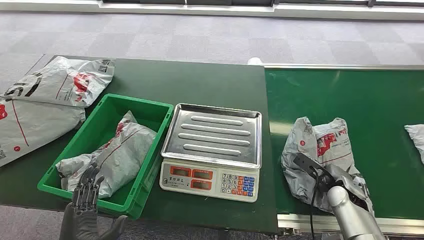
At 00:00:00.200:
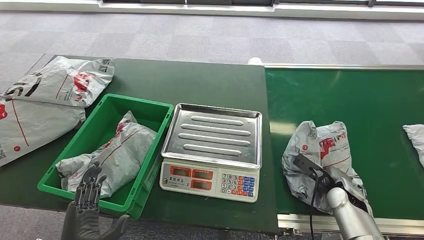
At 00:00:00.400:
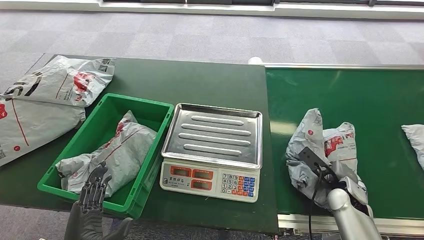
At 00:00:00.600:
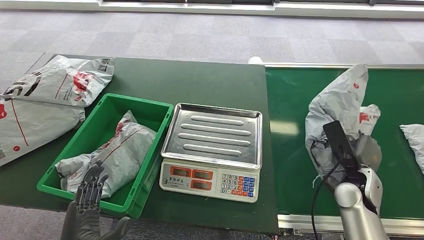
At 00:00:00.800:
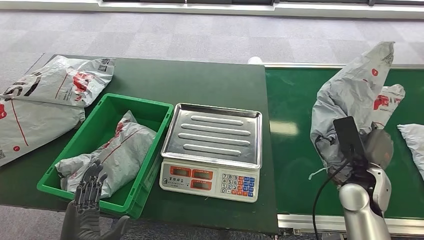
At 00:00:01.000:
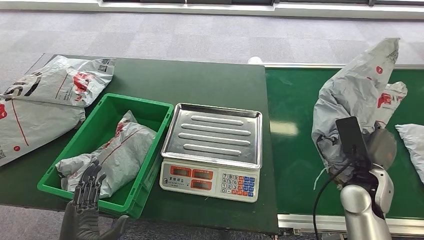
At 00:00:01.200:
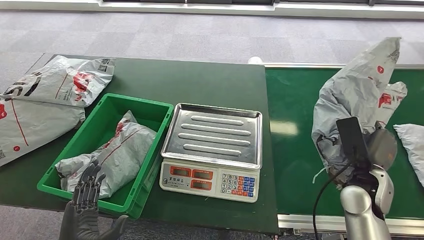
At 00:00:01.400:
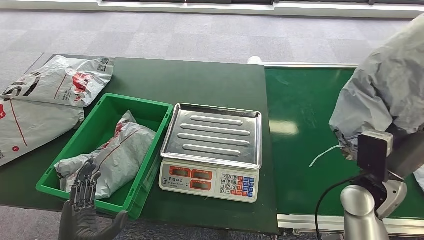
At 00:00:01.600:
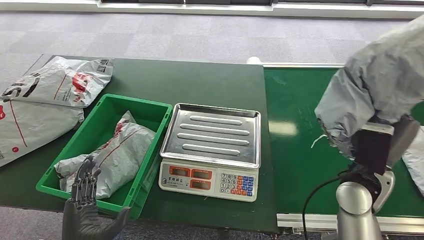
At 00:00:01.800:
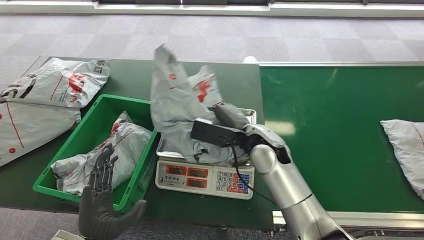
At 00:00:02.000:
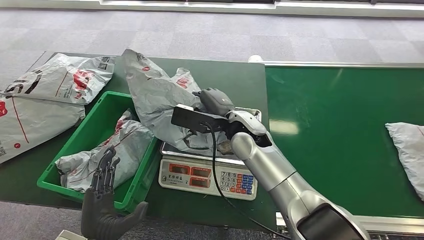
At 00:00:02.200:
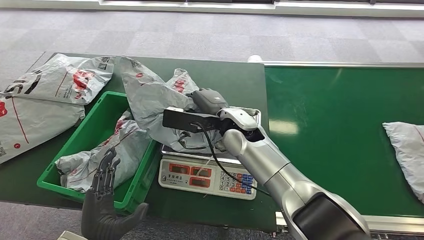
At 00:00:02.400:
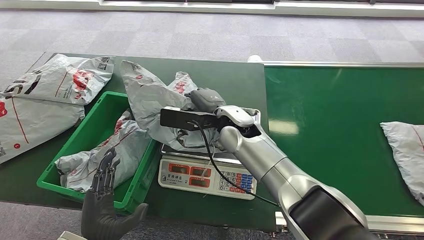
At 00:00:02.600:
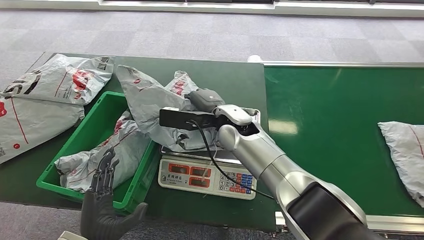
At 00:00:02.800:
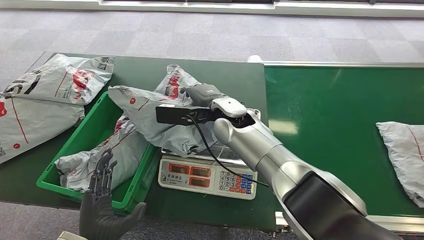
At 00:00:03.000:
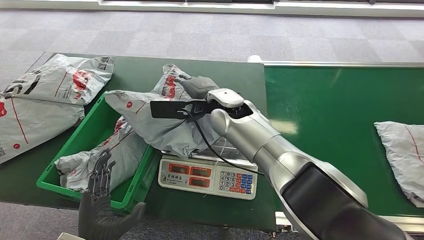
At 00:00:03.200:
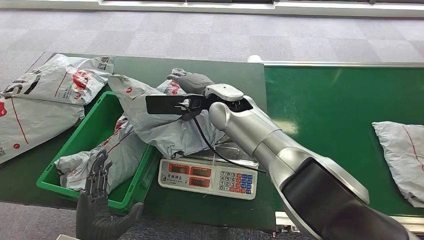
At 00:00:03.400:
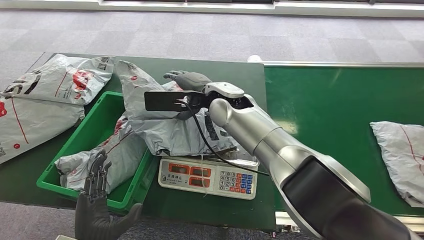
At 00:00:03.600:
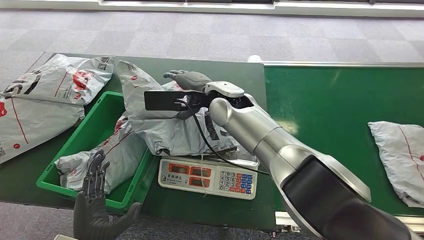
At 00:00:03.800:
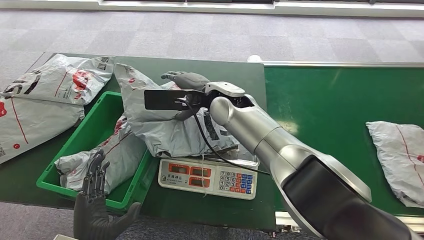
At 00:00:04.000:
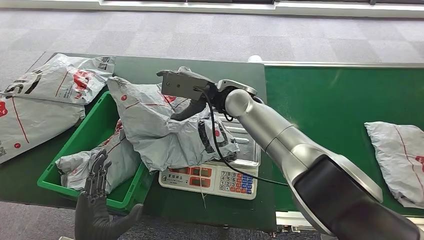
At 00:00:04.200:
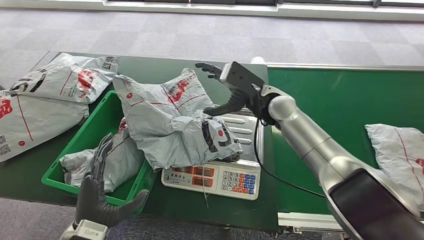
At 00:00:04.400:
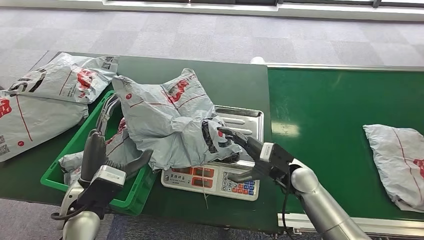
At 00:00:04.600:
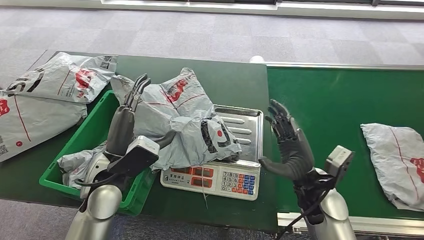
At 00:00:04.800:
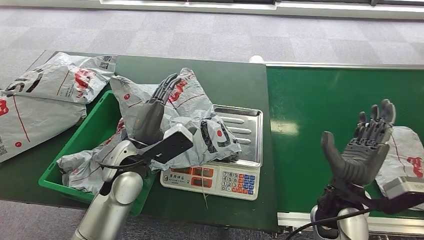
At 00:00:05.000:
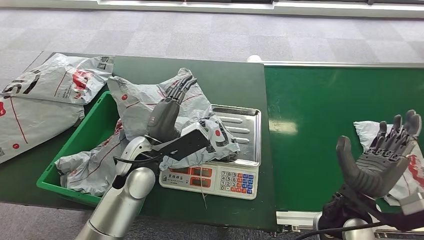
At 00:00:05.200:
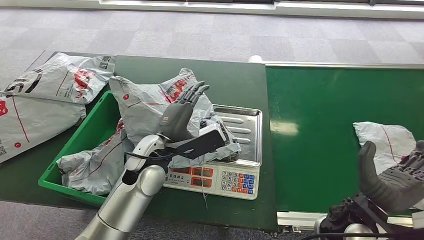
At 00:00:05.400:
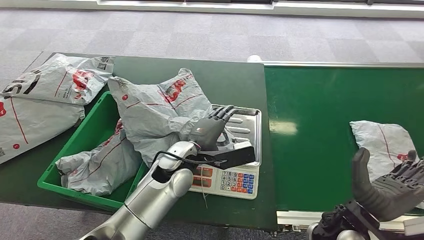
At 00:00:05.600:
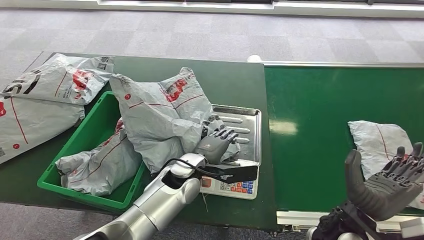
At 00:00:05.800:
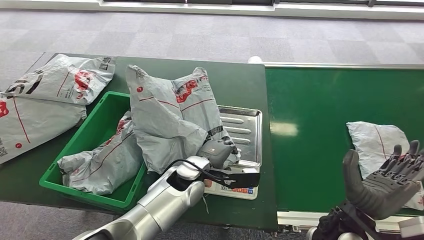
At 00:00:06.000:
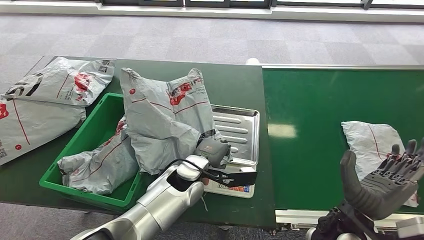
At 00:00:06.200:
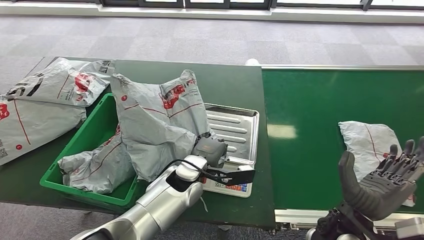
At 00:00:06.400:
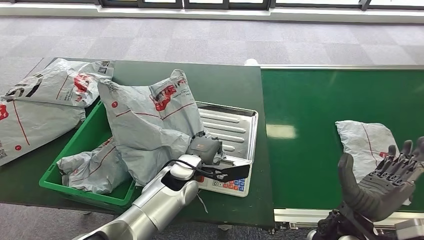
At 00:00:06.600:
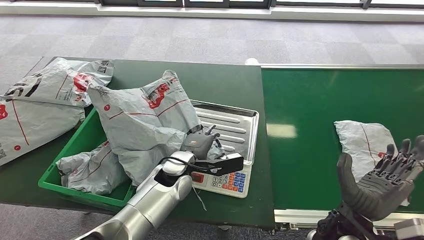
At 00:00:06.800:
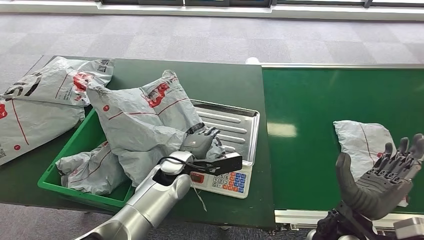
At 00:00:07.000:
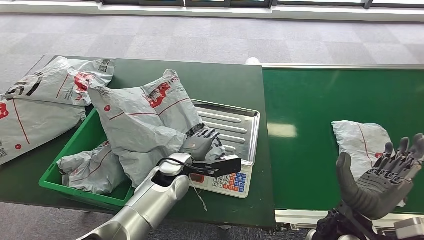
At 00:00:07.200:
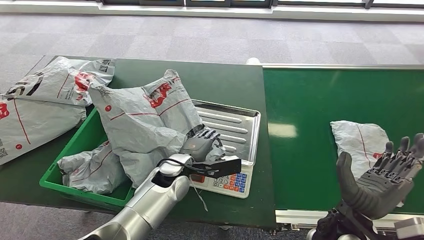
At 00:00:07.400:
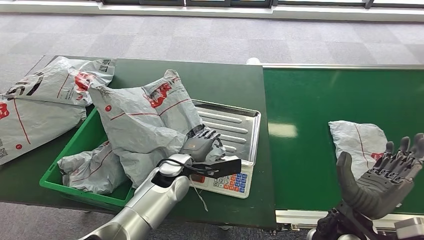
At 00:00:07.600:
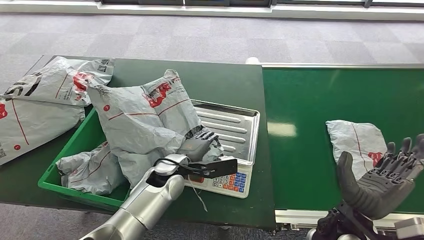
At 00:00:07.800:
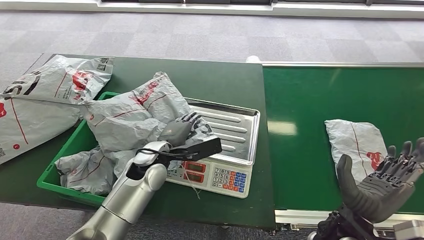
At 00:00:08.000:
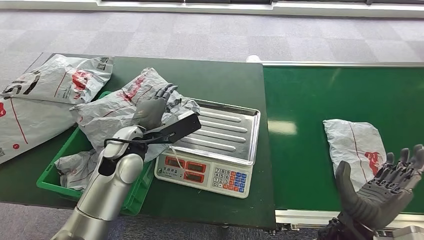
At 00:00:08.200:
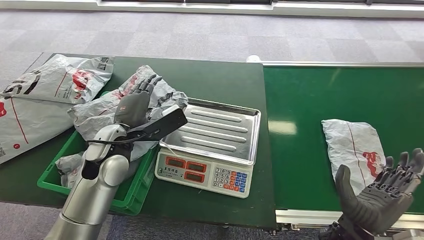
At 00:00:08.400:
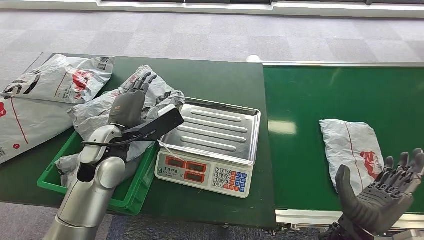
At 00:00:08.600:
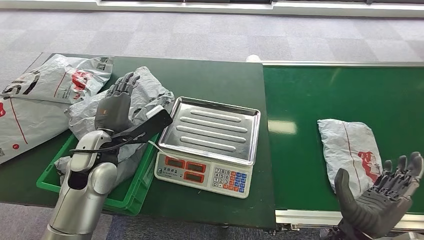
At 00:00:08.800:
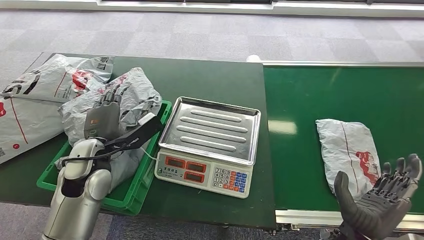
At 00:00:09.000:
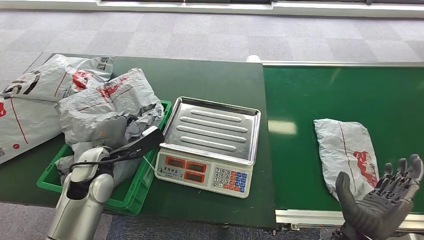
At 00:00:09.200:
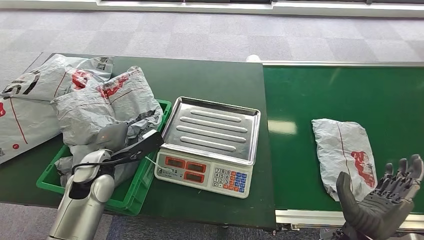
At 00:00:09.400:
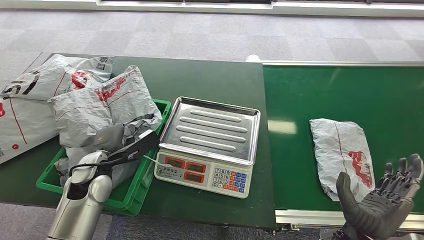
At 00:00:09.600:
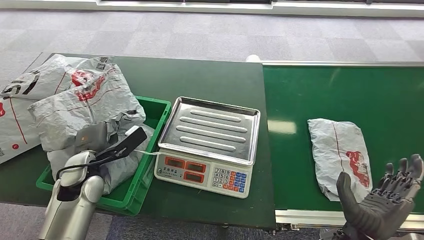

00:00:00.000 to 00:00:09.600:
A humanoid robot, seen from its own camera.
Step, 00:00:00.000 to 00:00:01.200: Pick up the package from the conveyor belt.
Step, 00:00:01.400 to 00:00:02.800: Place the package onto the inbound machine.
Step, 00:00:06.000 to 00:00:08.800: Pick up the package from the inbound machine.
Step, 00:00:09.000 to 00:00:09.600: Place the package into the parcel locker.
